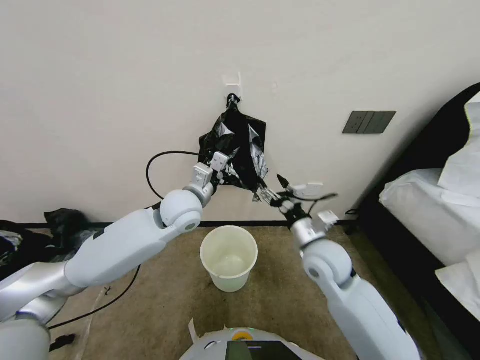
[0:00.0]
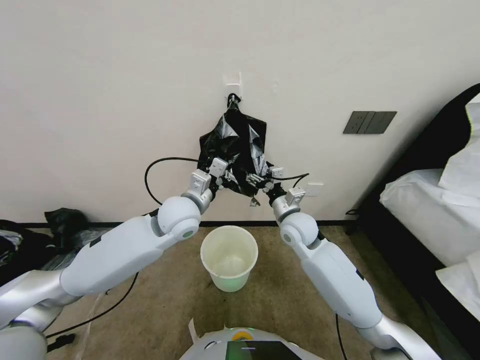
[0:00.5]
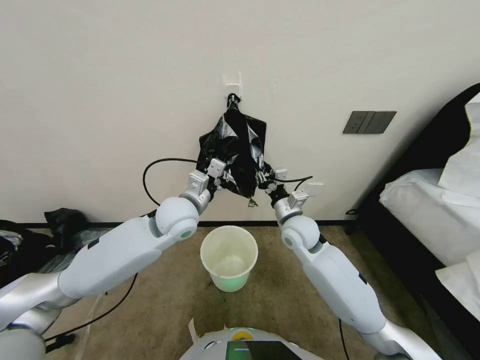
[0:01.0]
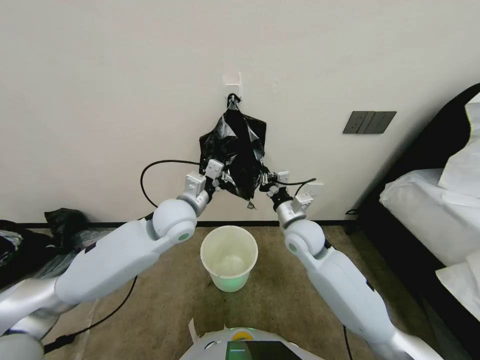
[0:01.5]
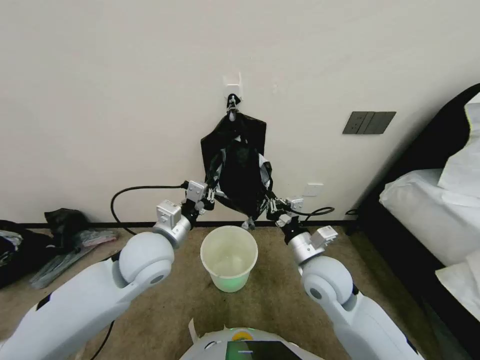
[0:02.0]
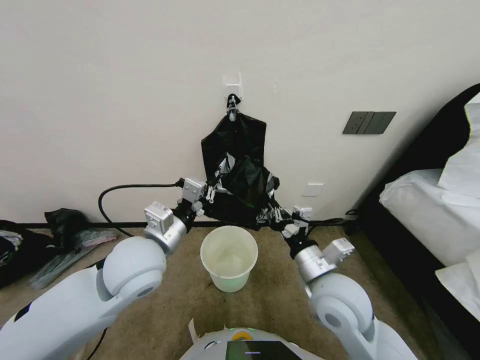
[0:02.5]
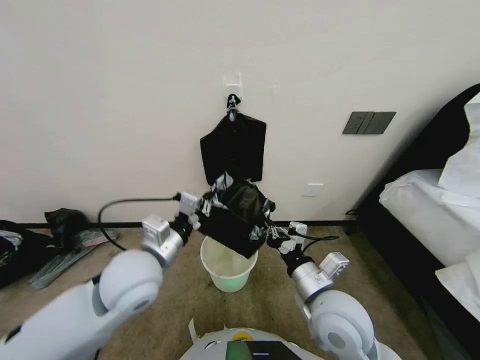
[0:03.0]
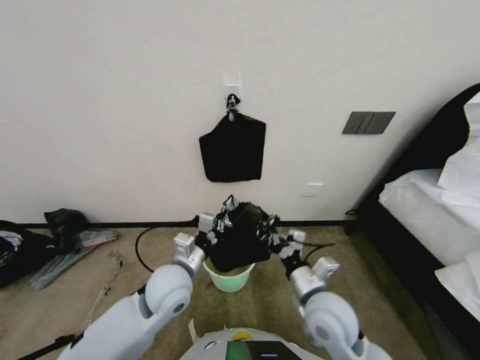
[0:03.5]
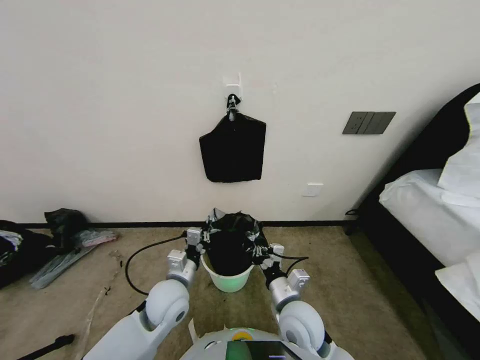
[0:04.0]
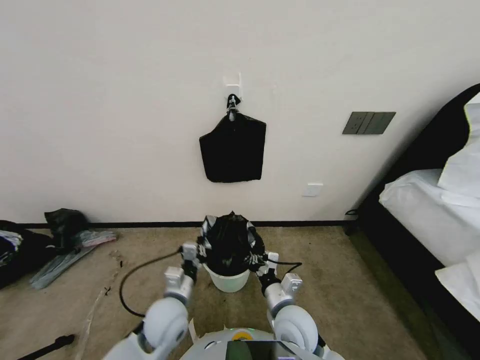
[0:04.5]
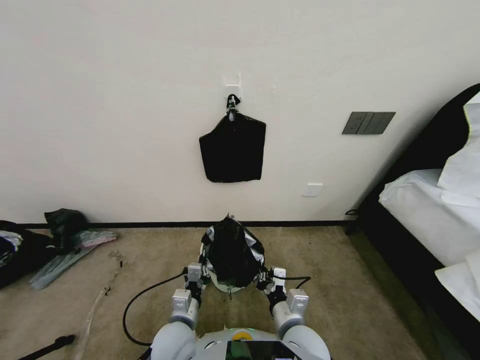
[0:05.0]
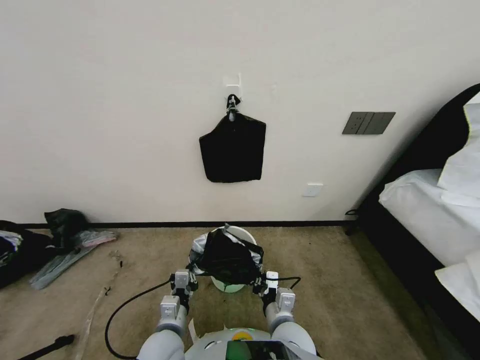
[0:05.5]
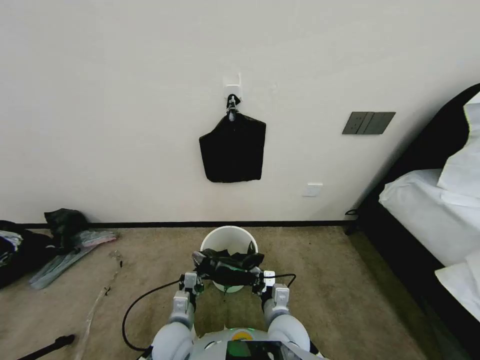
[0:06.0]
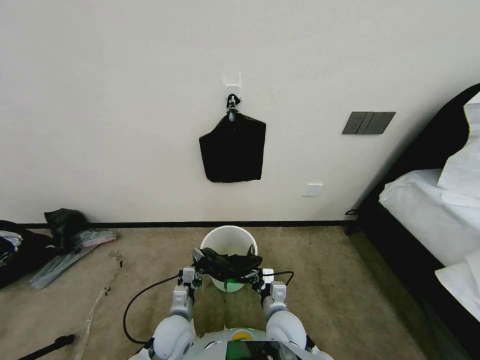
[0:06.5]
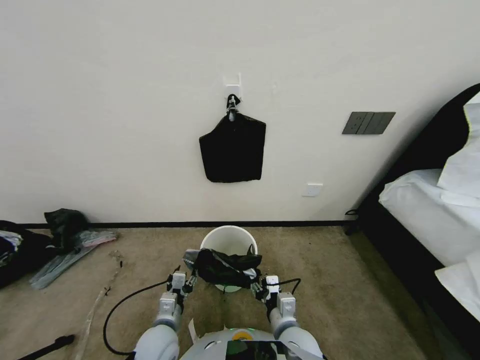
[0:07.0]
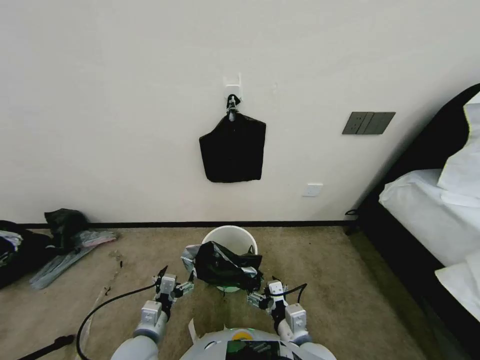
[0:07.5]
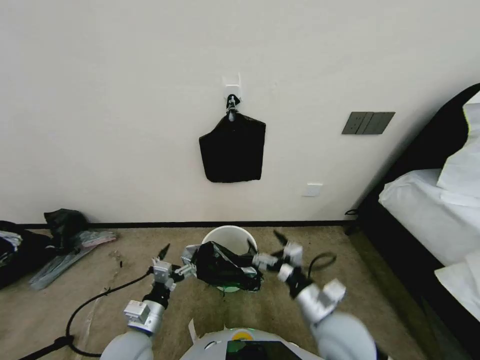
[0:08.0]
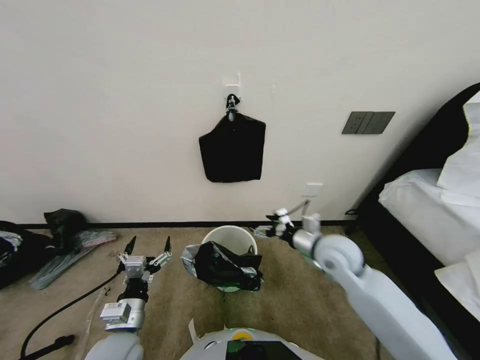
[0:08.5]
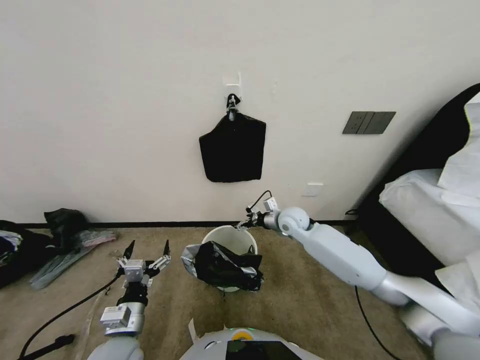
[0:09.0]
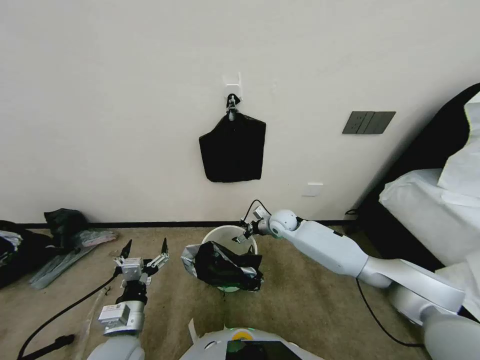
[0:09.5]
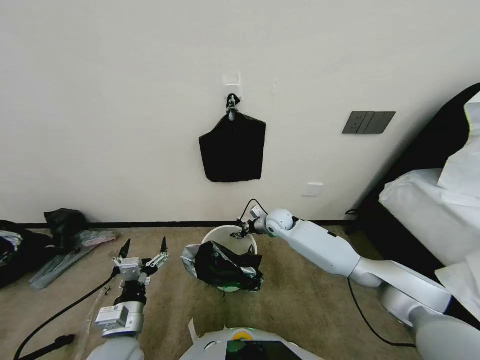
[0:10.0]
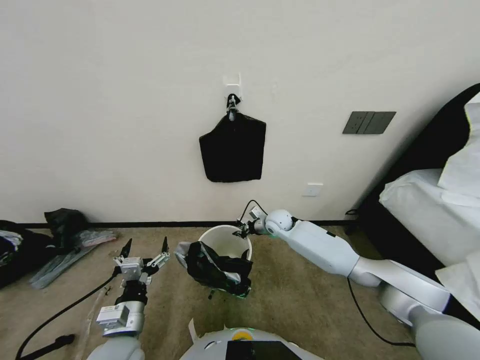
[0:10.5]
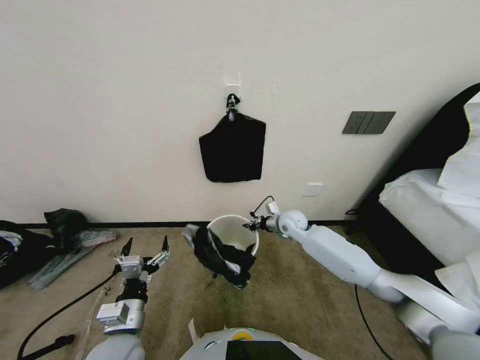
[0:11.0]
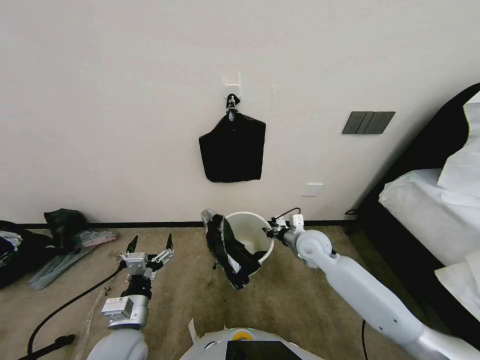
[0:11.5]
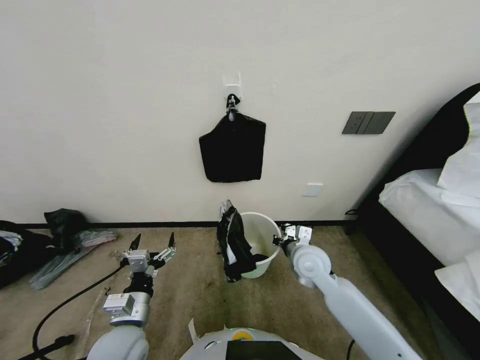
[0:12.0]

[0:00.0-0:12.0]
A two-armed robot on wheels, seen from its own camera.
Task of the whole recording: Place a trash bag onto the trash bin.
0:00.0 to 0:02.0: The left gripper goes roughly 10 cm backward. Meanwhile the right gripper travels forward and back again, some 10 cm each way, and closes.
0:02.0 to 0:04.0: The left gripper travels downward by some 15 cm. Meanwhile the right gripper travels downward and backward by roughly 10 cm.
0:04.0 to 0:06.0: The right gripper ends up approximately 5 cm from where it was, while the left gripper moves downward and backward, roughly 15 cm.
0:06.0 to 0:08.0: The left gripper moves to the left and upward, about 10 cm, and opens. The right gripper moves to the right and upward, approximately 10 cm, and opens.
0:08.0 to 0:10.0: The left gripper changes place by roughly 5 cm; the right gripper goes approximately 35 cm forward, and closes its fingers.
0:10.0 to 0:12.0: The right gripper moves backward, approximately 15 cm, and closes up.

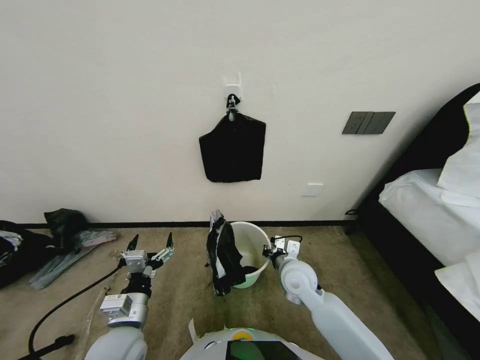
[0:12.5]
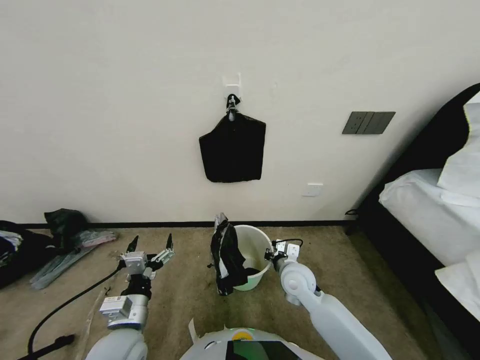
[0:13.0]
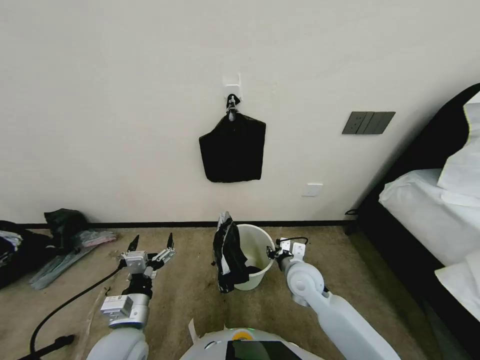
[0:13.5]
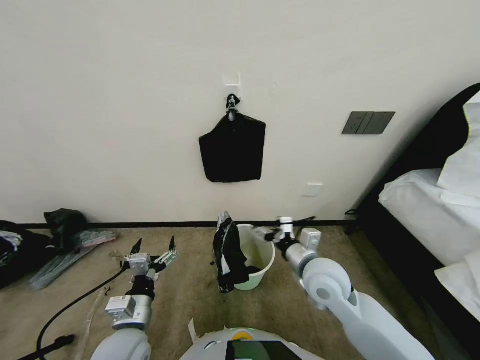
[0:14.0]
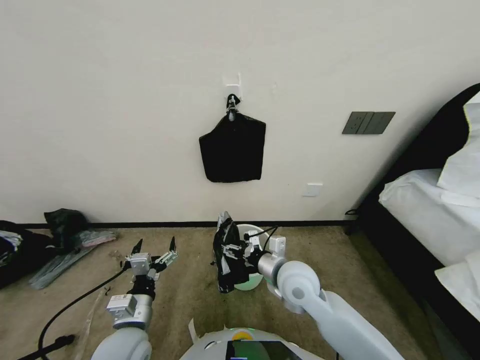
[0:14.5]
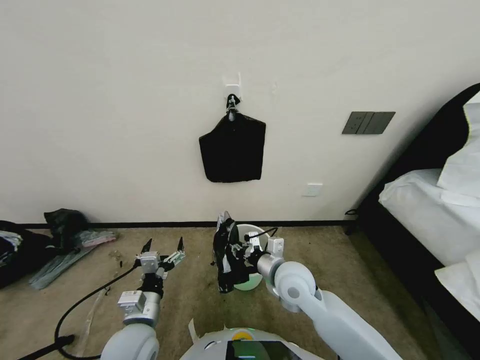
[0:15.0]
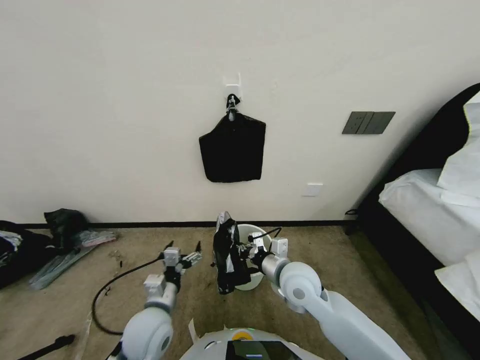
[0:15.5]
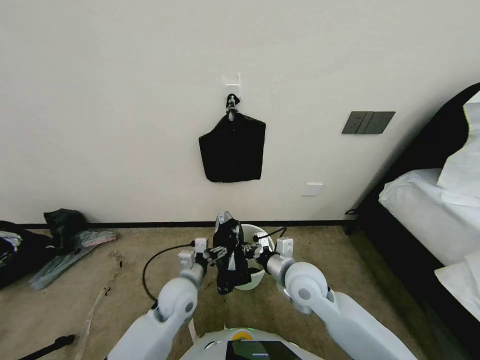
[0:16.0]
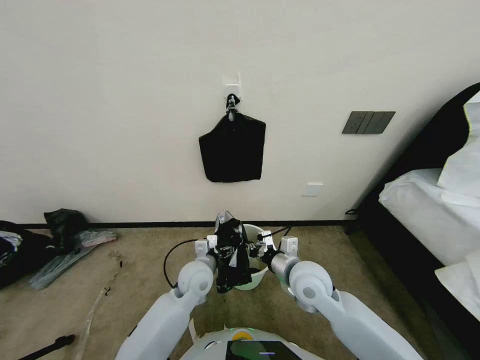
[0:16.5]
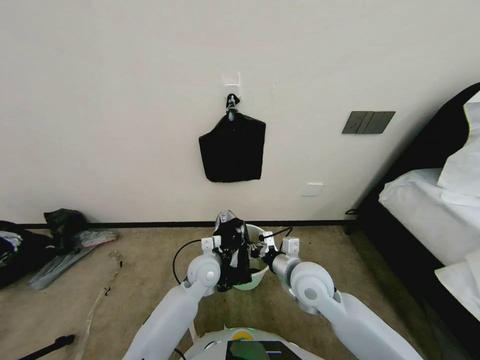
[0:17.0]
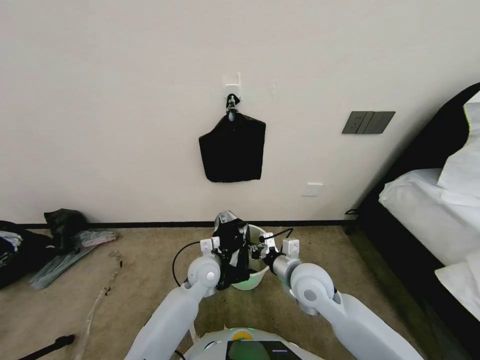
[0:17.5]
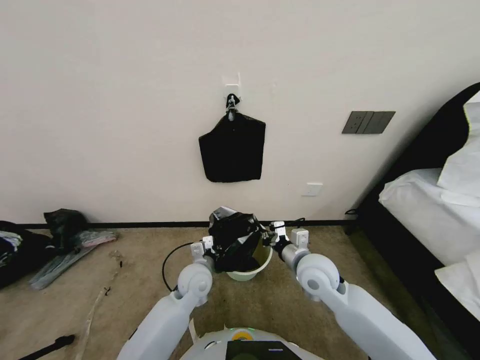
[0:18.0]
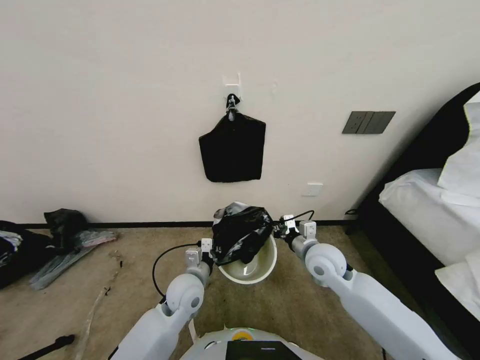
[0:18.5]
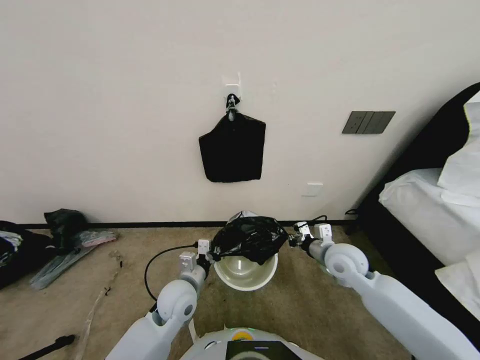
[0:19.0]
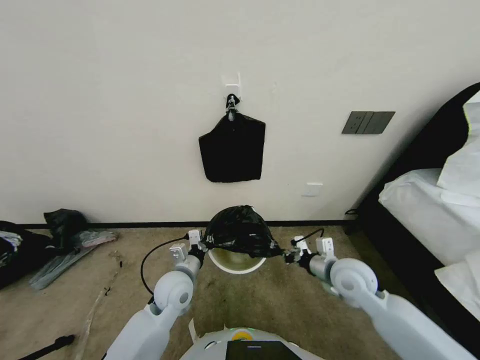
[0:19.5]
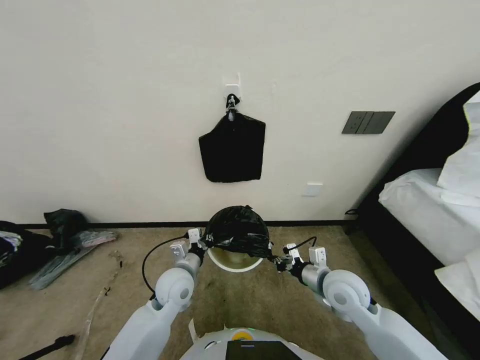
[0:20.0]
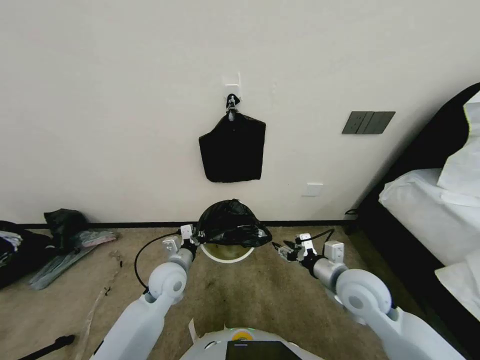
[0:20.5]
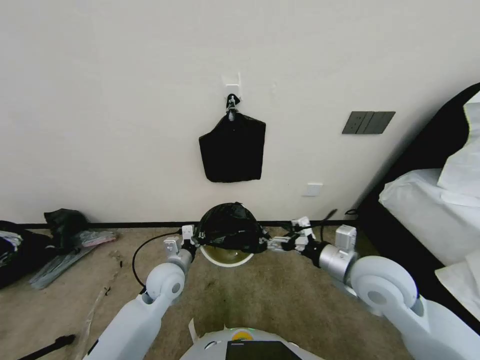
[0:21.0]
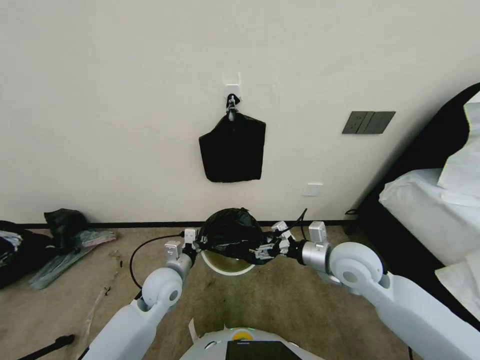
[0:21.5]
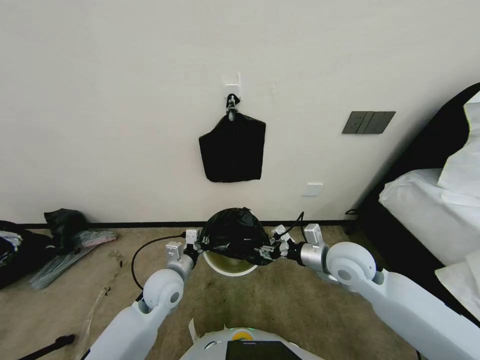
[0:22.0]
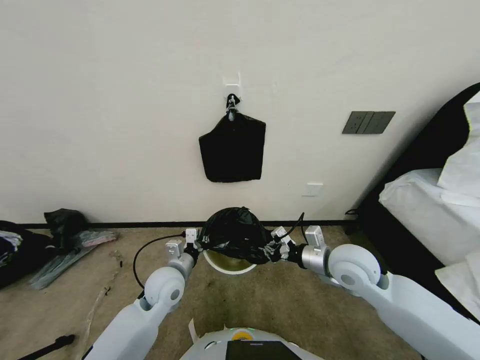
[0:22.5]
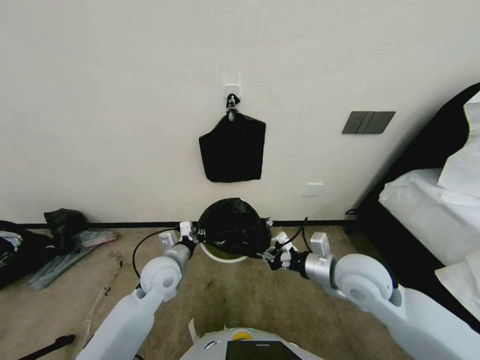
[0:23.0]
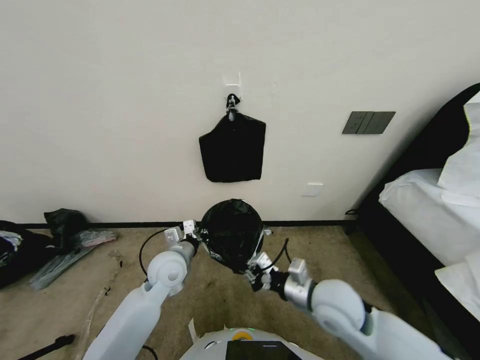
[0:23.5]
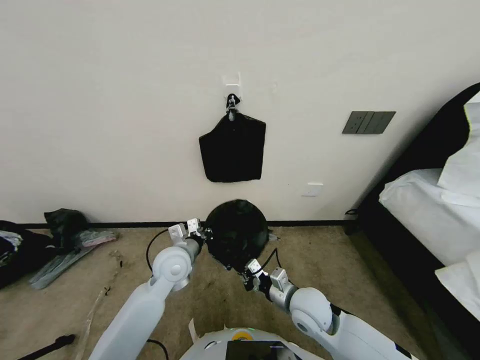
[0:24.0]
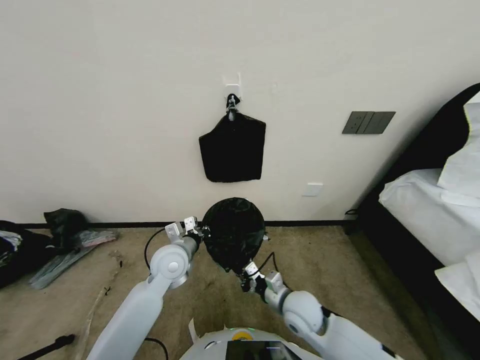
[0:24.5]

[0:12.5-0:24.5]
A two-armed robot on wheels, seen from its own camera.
Task of the whole recording: Place a trash bag onto the trash bin.
0:12.5 to 0:14.5: The right gripper shifts about 5 cm upward, and opens up.
0:14.5 to 0:16.5: The right gripper closes its fingers, while the left gripper is displaced forward and to the right by roughly 20 cm.
0:16.5 to 0:18.5: The right gripper heads to the right, covering about 5 cm. The left gripper closes its fingers.
0:18.5 to 0:20.5: The left gripper changes place by roughly 5 cm, while the right gripper moves backward, some 5 cm, and opens up.
0:20.5 to 0:22.5: The right gripper ends up about 5 cm from where it was, and closes its fingers.
0:22.5 to 0:24.5: The left gripper moves about 5 cm. The right gripper travels downward, to the left and backward by roughly 15 cm.

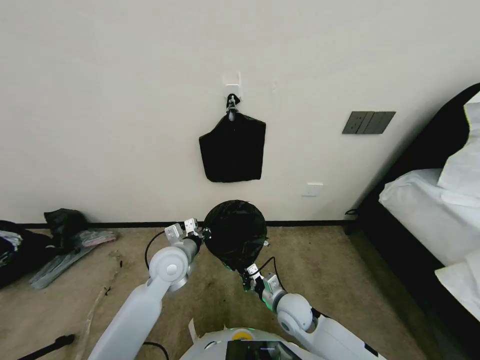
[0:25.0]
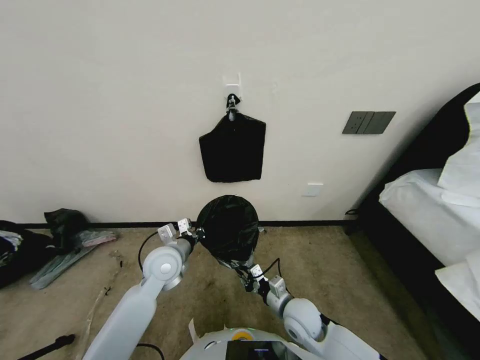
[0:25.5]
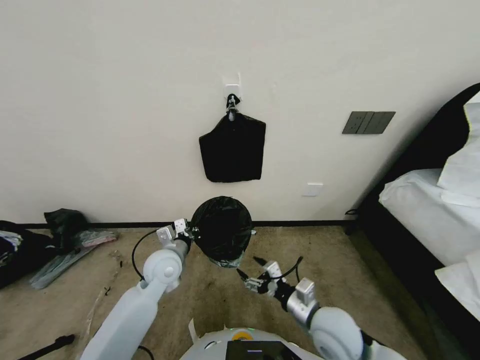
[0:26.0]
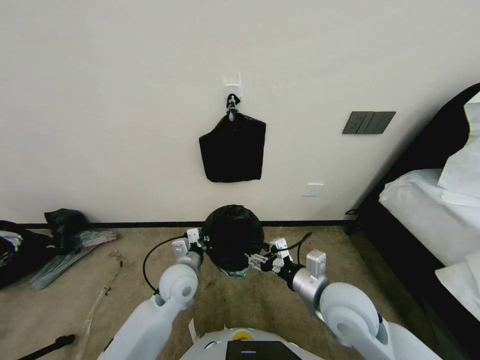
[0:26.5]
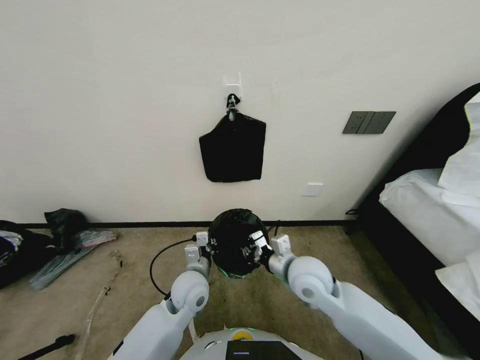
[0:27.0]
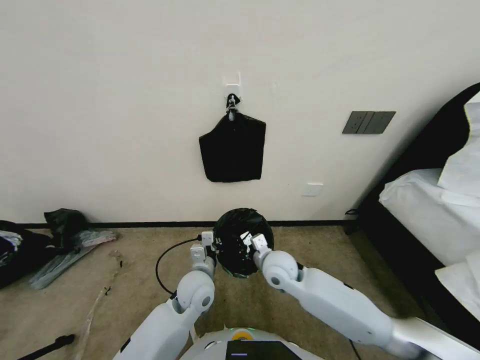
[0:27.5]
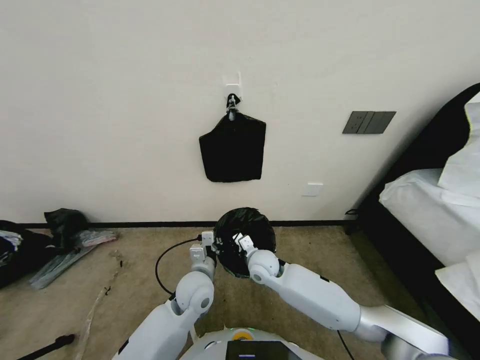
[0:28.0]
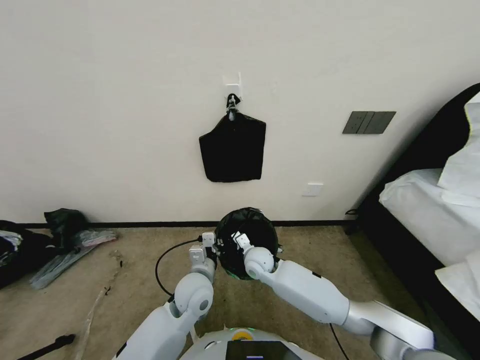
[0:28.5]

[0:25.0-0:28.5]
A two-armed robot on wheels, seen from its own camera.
Task of the whole recording: Place a trash bag onto the trash bin.
0:25.0 to 0:27.0: The left gripper shifts approximately 10 cm downward and to the right. Meanwhile the right gripper is displaced upward by some 15 cm, and opens, then closes once more.
0:27.0 to 0:28.5: The right gripper travels downward, to the left and forward by about 20 cm.
